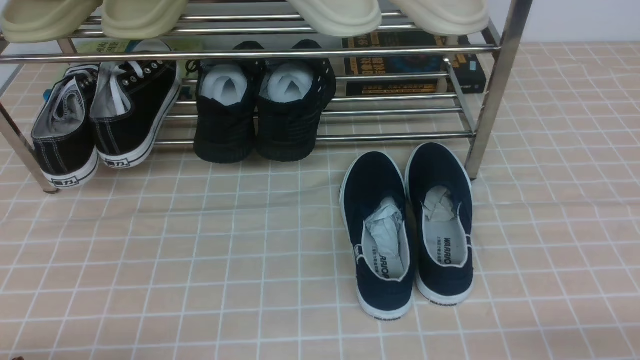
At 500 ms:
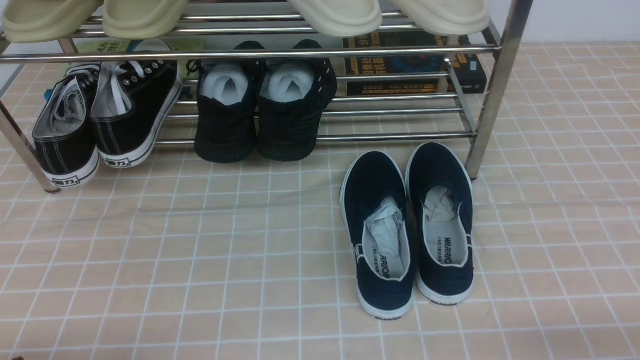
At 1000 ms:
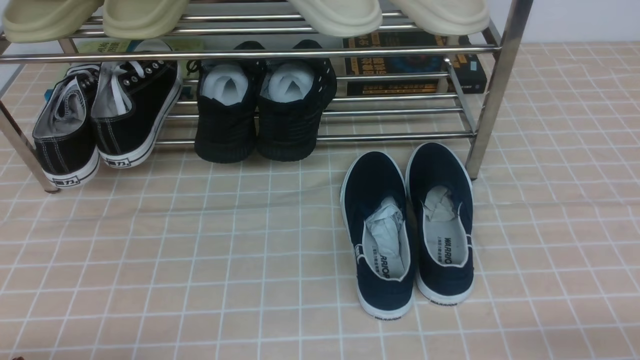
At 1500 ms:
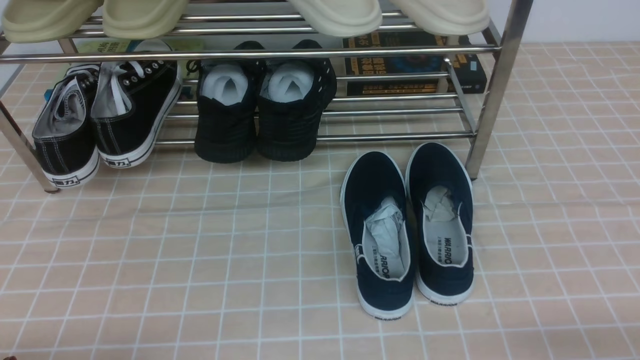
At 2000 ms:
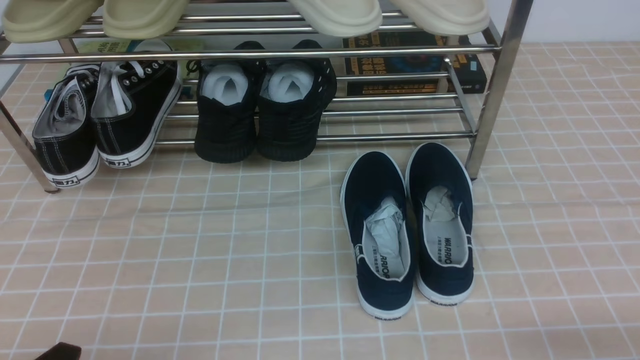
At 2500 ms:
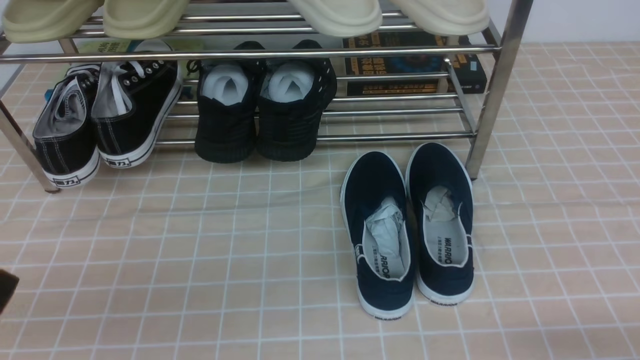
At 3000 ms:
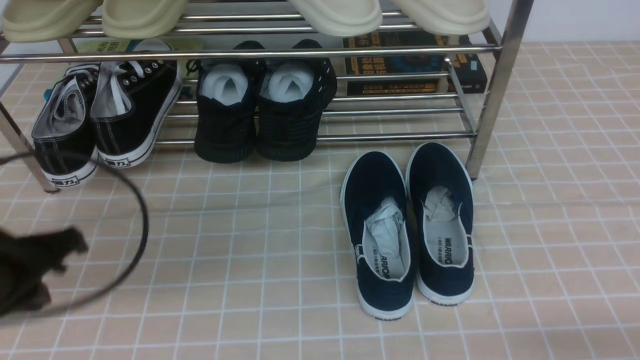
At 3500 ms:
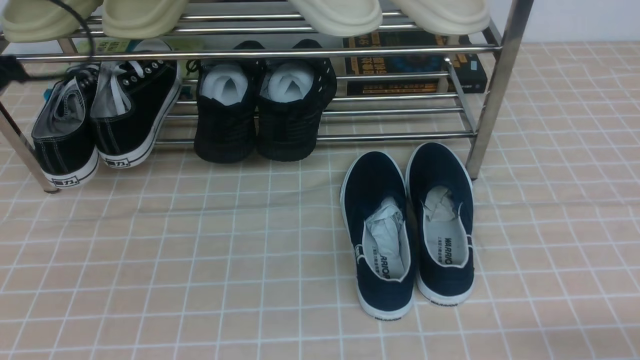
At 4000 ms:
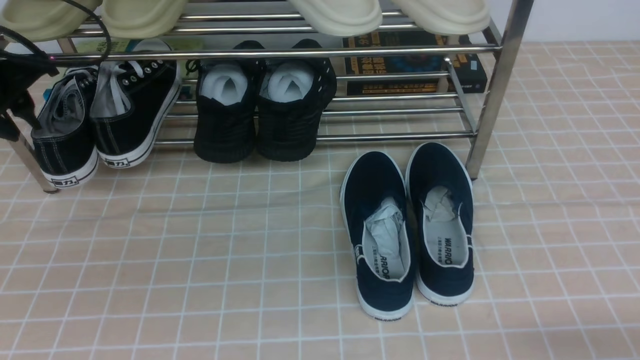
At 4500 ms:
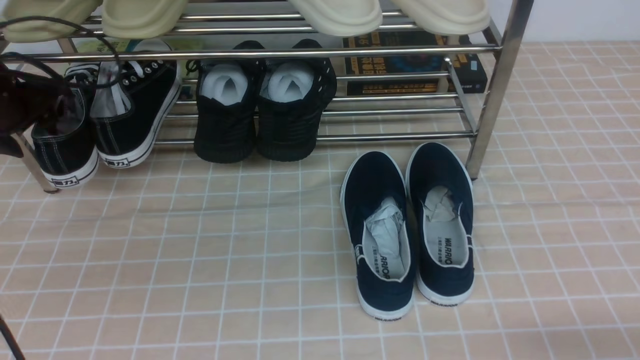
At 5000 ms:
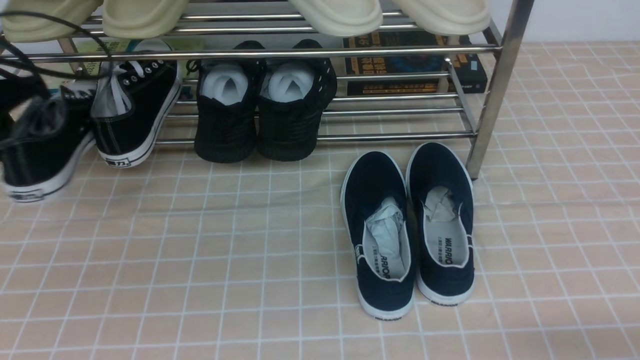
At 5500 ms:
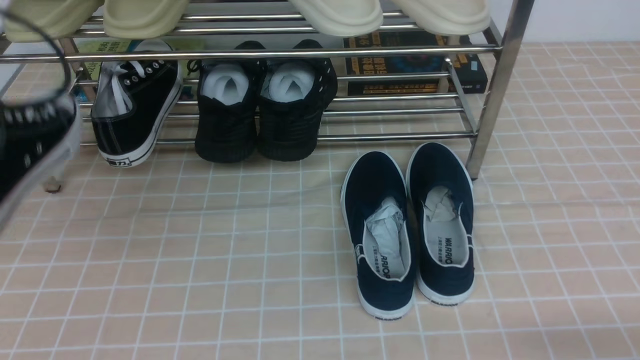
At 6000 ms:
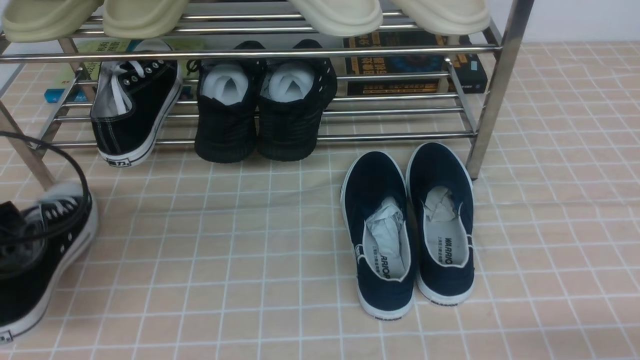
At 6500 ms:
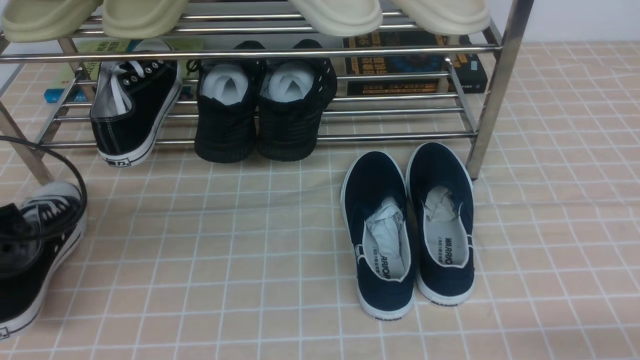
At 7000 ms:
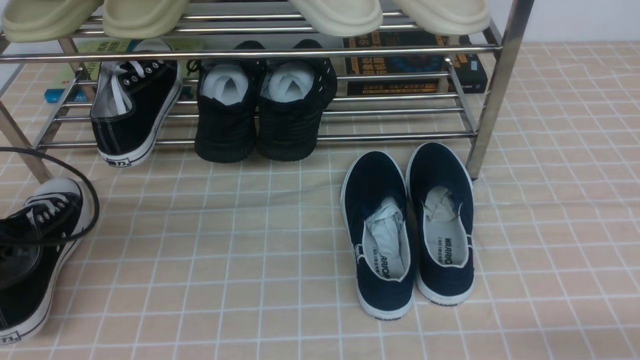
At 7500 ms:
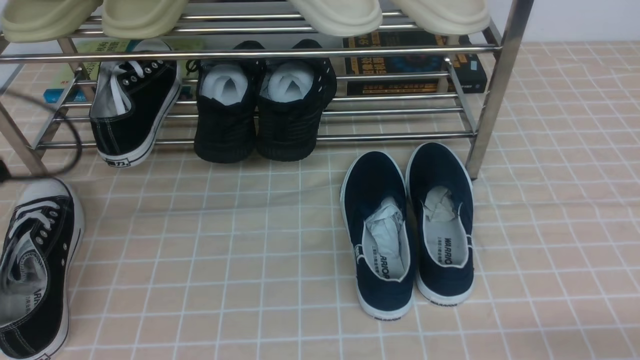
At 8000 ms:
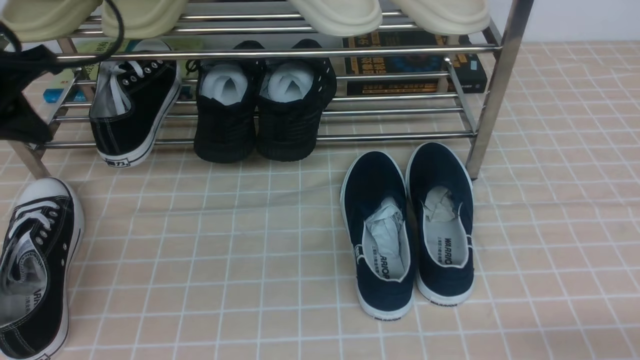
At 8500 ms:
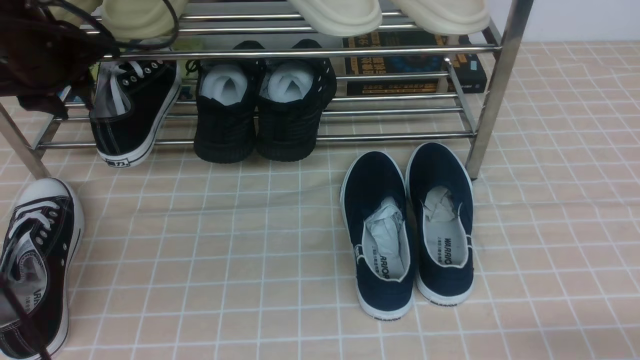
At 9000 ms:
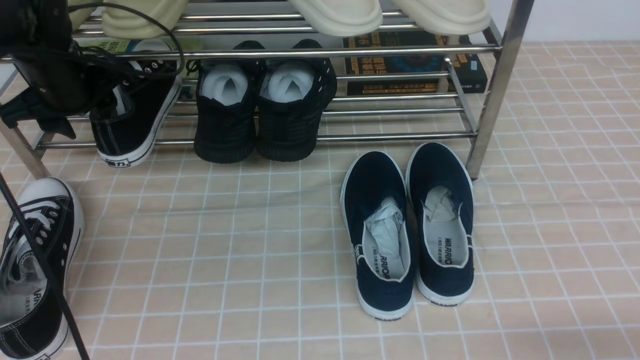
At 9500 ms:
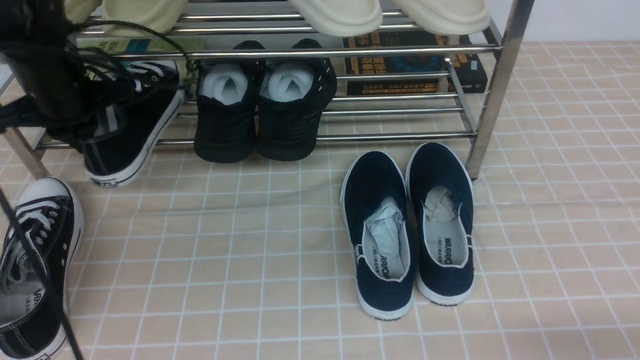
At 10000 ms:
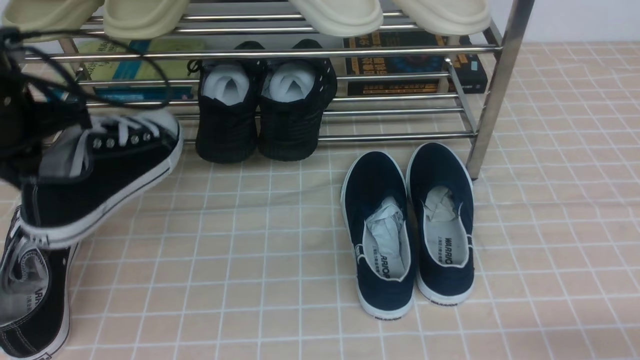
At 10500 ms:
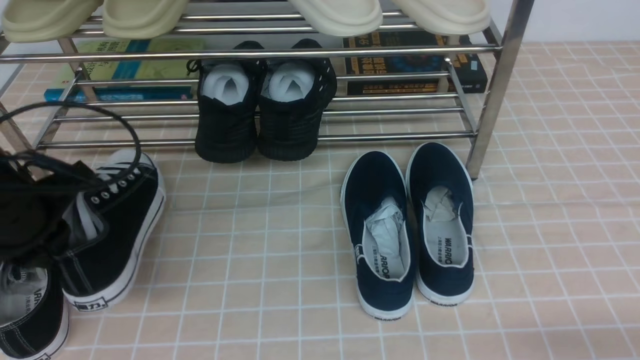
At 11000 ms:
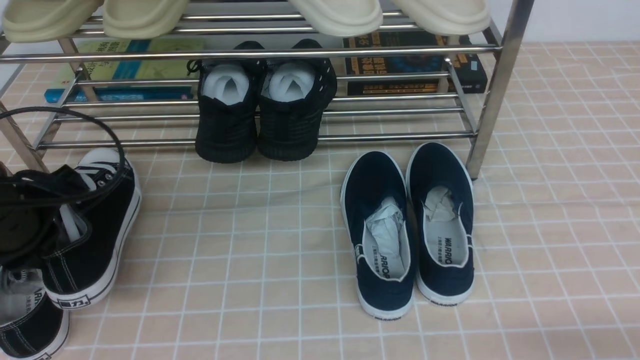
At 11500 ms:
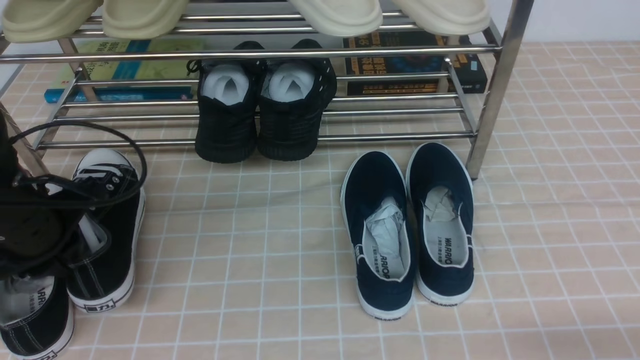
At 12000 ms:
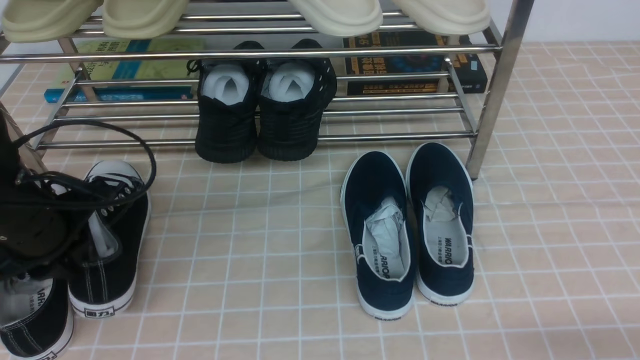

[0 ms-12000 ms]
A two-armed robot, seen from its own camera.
Step, 0 ms to 4500 ms: use the left arm to clamp a shoe on the left side of the shoe rack.
Step, 5000 ms to 7500 ms: Use your left arm to remove the clamped shoe from the shoe rack and put it down.
Step, 8000 ms to 9000 ms: use the left arm to clamp a shoe on the left side of the shoe rack.
2000 ms to 4000 ms: The left gripper heads forward and upward, covering some 35 cm, and closes, then reopens.
4000 ms to 6000 ms: The left gripper travels backward by roughly 15 cm, and closes its fingers.
6000 ms to 8000 ms: The left gripper is displaced forward and upward by roughly 15 cm, and opens, then closes again.
8000 ms to 10000 ms: The left gripper reaches roughly 10 cm forward, then returns, and opens, then closes again.
10000 ms to 12000 ms: The left gripper travels downward by about 10 cm.

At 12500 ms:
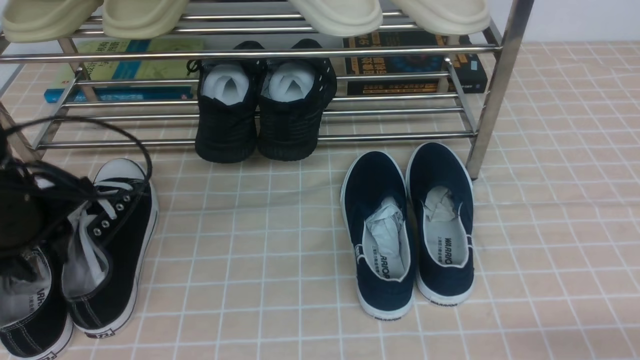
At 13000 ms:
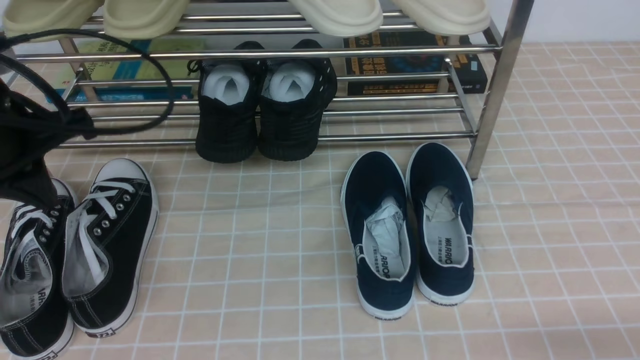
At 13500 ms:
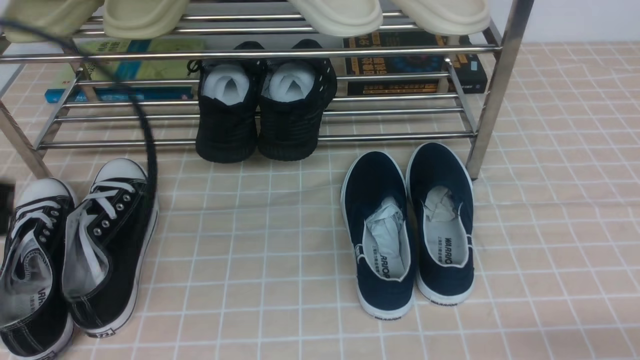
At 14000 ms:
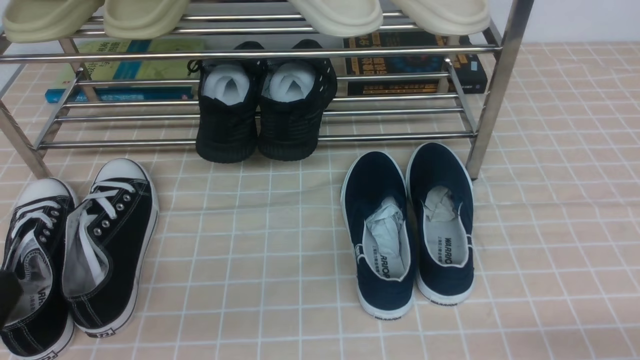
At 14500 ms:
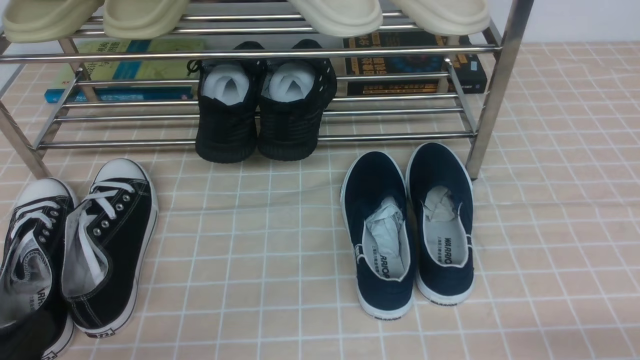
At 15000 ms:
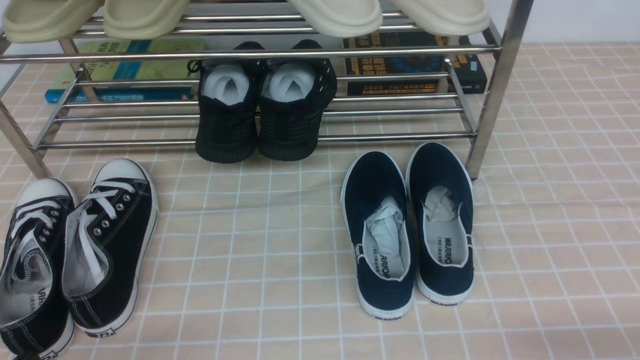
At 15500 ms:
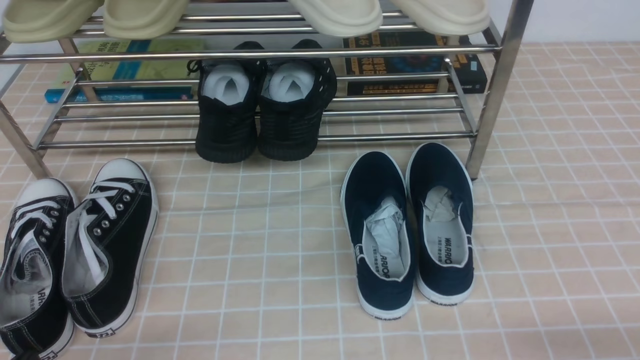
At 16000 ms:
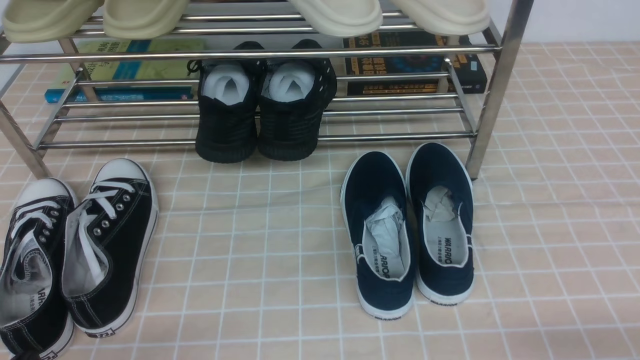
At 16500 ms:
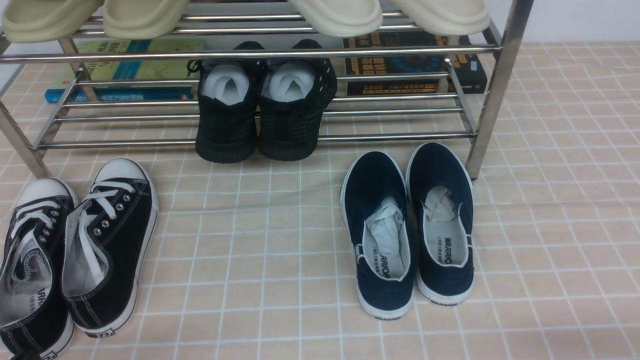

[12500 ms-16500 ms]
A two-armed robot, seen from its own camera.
12500 ms to 14500 ms: The left gripper shifts approximately 20 cm backward, and closes its fingers.

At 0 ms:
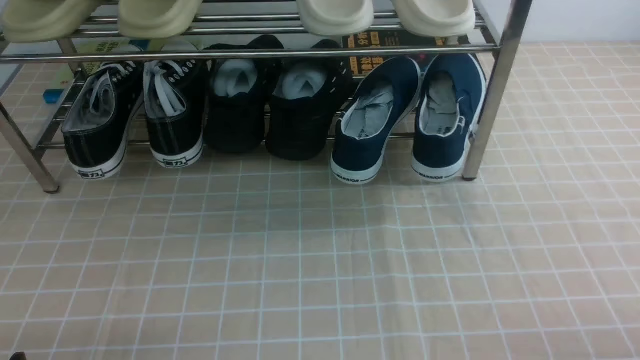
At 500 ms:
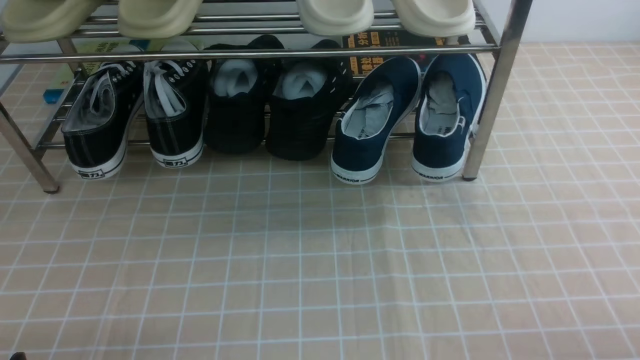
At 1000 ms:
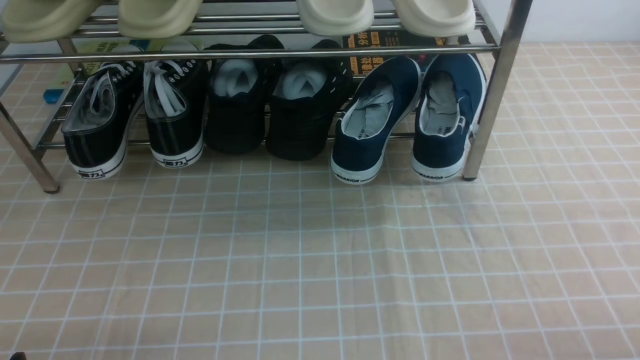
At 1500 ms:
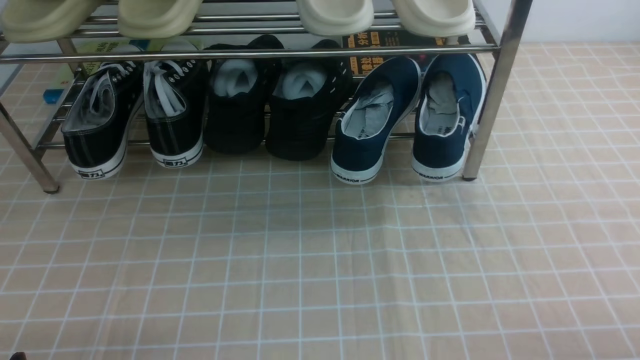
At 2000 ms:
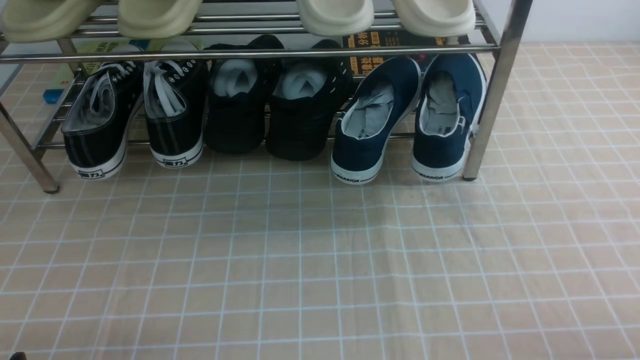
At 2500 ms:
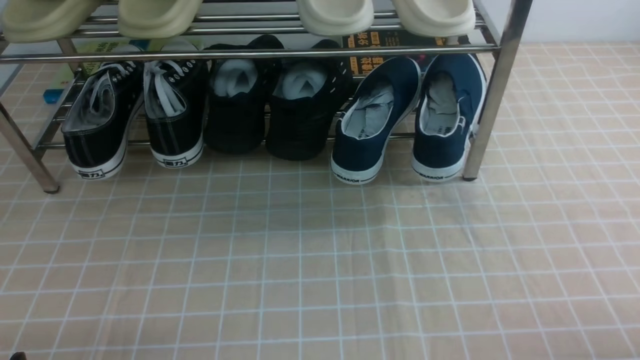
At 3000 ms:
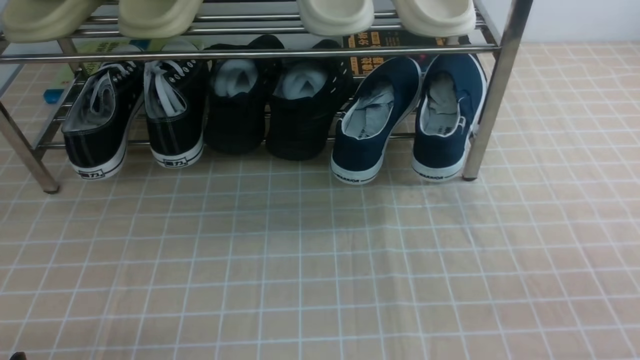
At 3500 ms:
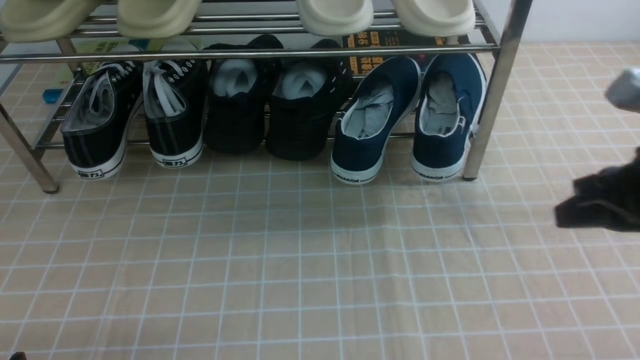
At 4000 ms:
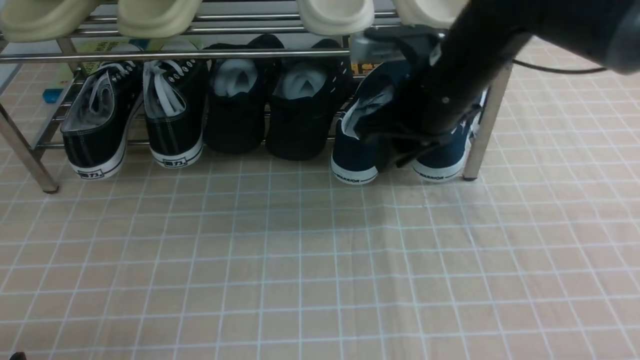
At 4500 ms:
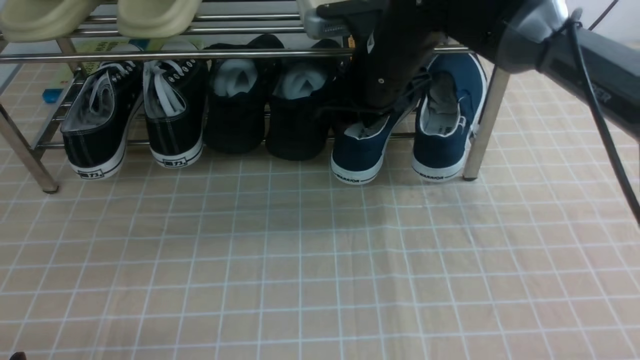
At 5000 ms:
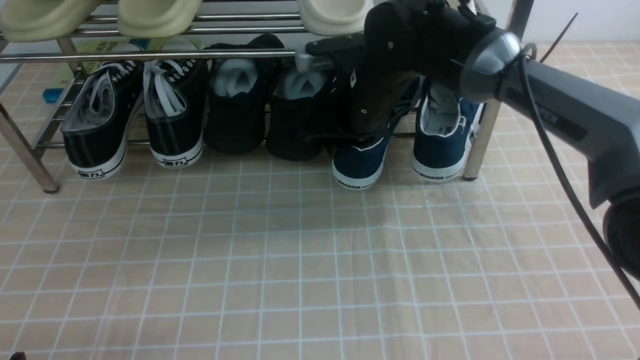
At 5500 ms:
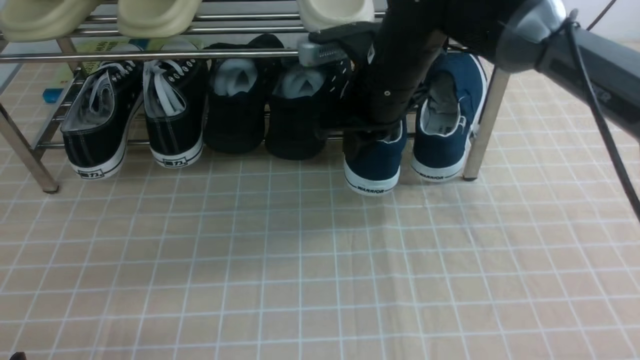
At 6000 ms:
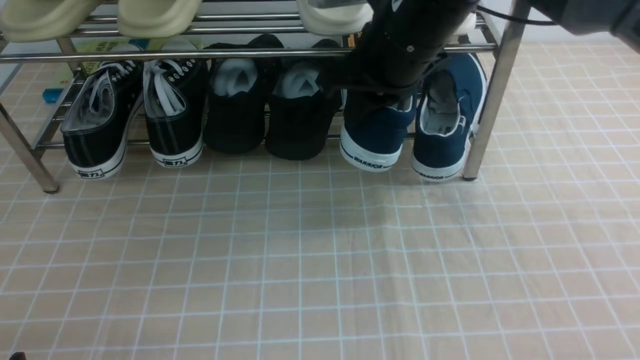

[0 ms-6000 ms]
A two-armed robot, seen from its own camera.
Step, 0 ms to 5000 ms: use the right arm to clamp a shoe on the right side of the shoe rack.
2000 ms to 4000 ms: The right gripper shifts approximately 35 cm forward, to the left and upward, and closes, then opens again.
4000 ms to 6000 ms: The right gripper goes some 5 cm to the left, and closes up.
